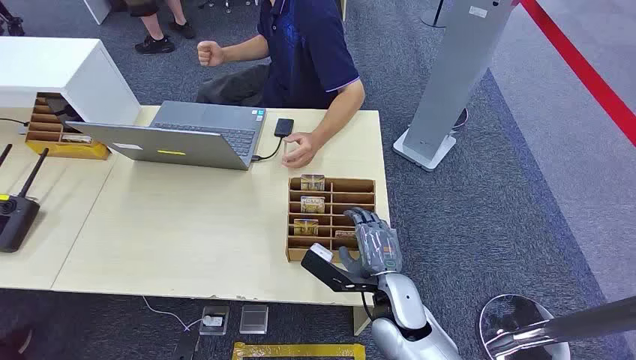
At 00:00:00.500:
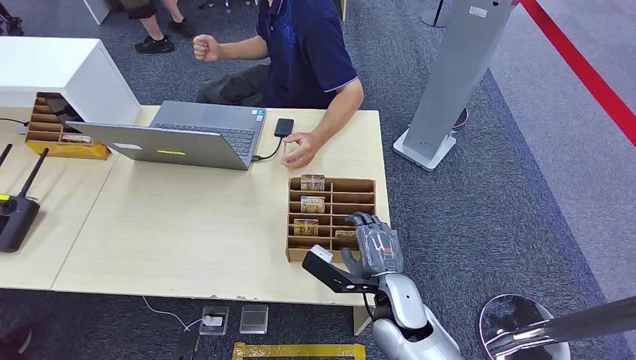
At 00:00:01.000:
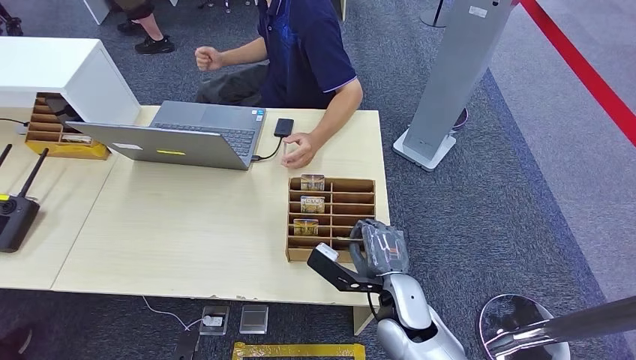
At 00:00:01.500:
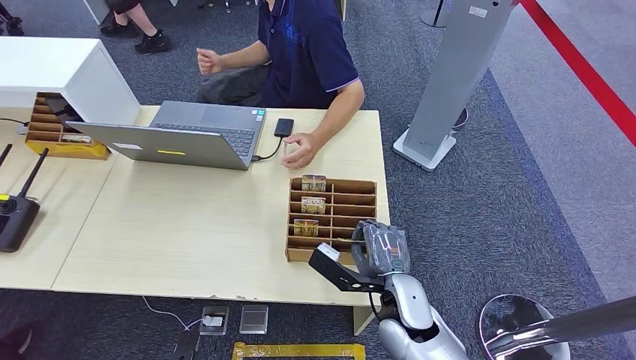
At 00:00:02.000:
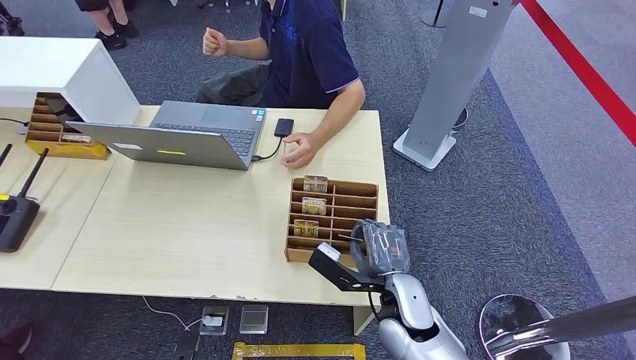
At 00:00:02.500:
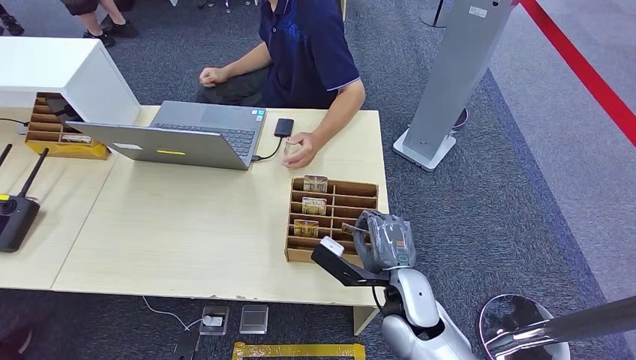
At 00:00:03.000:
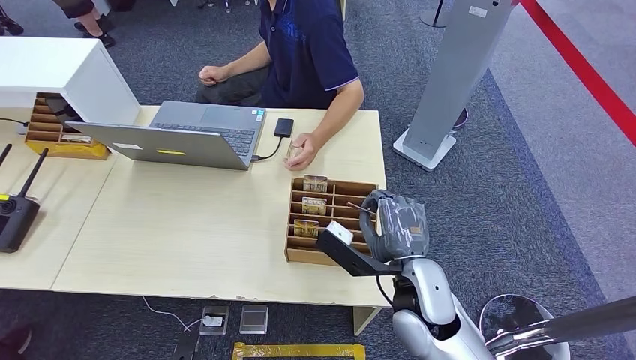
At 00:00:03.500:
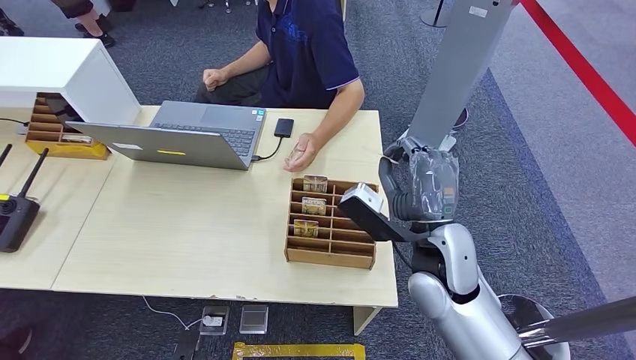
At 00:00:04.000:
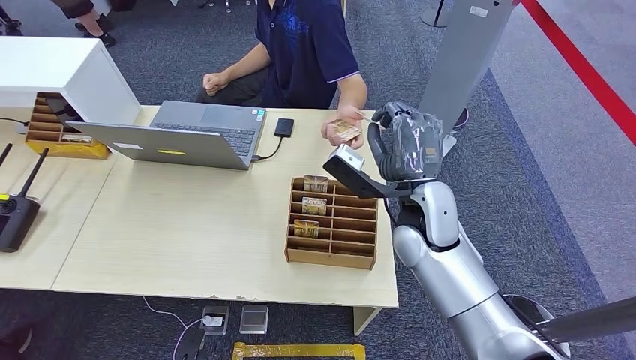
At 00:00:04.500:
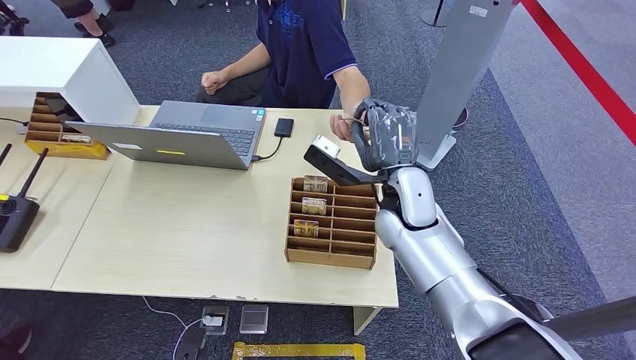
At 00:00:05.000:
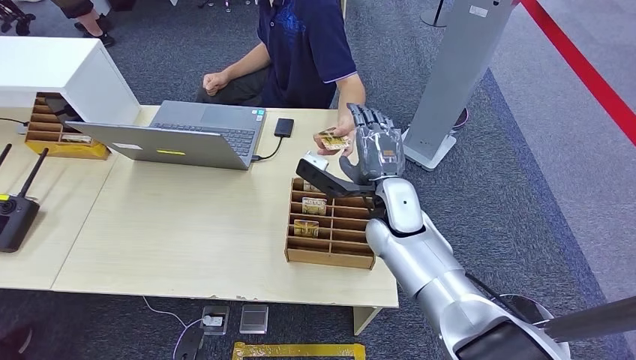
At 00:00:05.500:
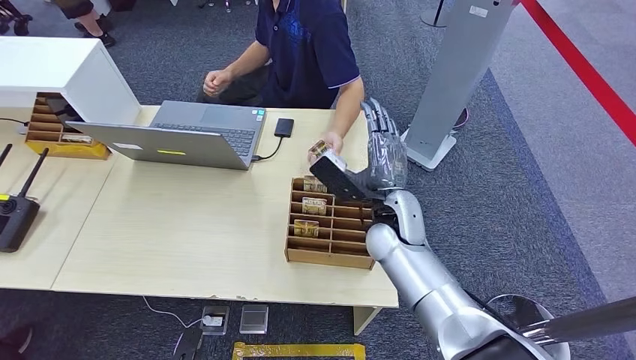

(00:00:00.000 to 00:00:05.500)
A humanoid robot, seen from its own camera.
Step, 00:00:00.000 - 00:00:02.500: Pick up the key card from the card box.
Step, 00:00:04.000 - 00:00:05.500: Hand the key card to the target.
00:00:02.000 - 00:00:03.500: The right hand shifts approximately 10 cm upward.
00:00:03.500 - 00:00:05.500: The right hand heads forward and to the left, covering some 10 cm.

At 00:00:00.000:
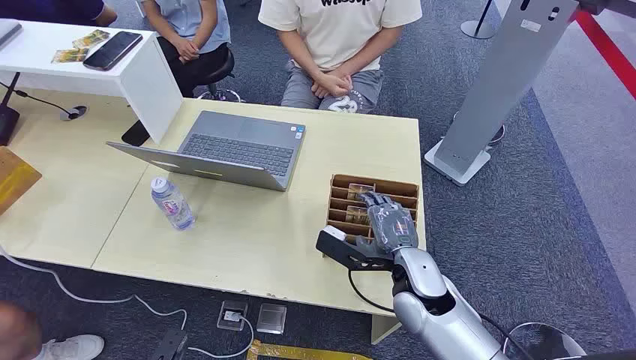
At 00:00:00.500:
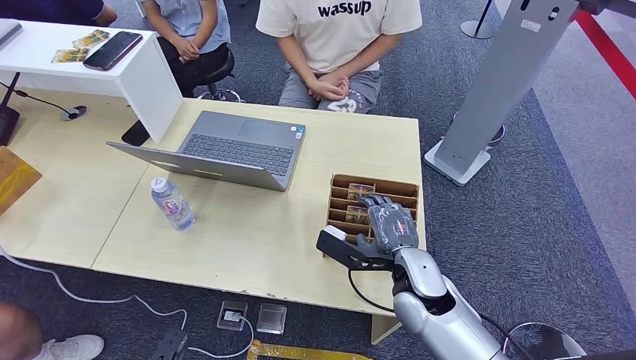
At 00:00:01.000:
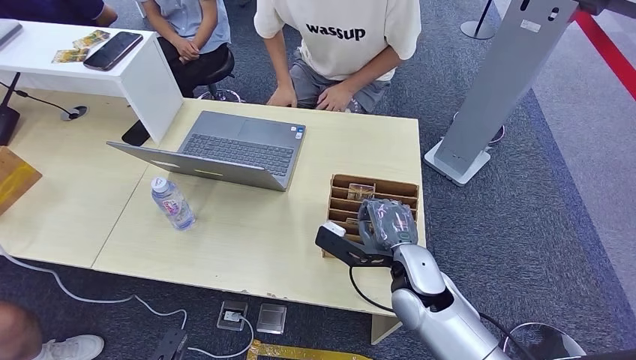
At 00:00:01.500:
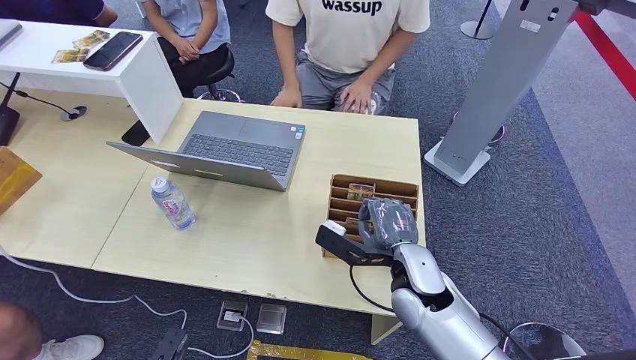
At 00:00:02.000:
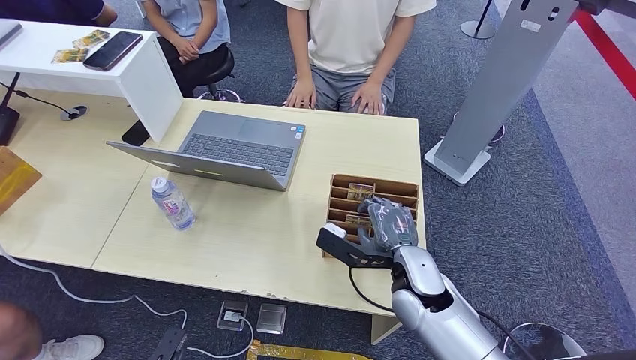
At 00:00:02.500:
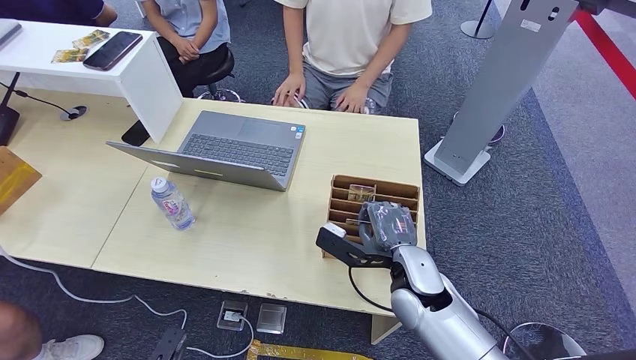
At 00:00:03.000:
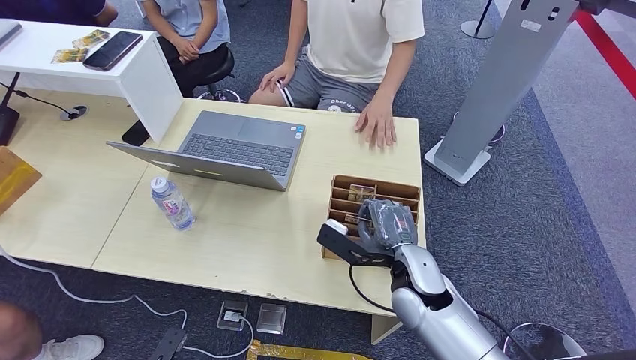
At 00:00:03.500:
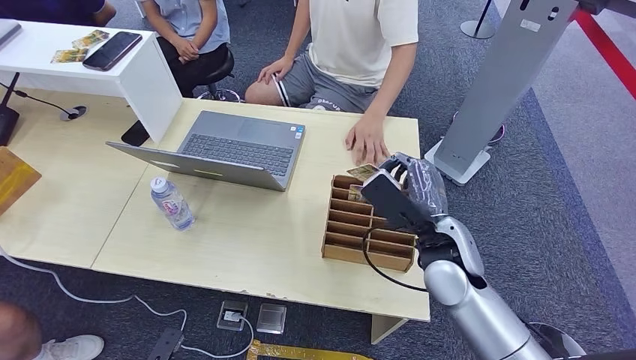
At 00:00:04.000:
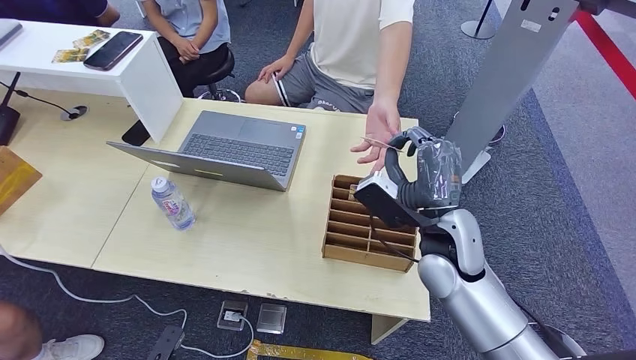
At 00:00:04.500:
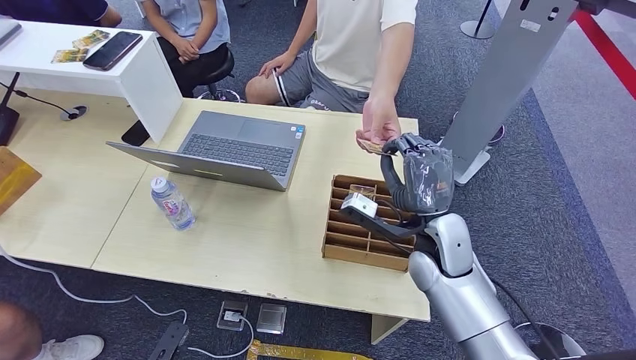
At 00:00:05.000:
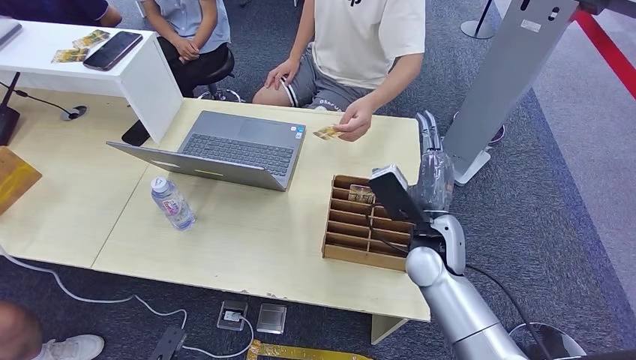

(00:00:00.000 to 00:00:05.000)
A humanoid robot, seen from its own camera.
Step, 00:00:00.000 - 00:00:03.000: Pick up the key card from the card box.
Step, 00:00:03.500 - 00:00:05.000: Hand the key card to the target.
00:00:02.500 - 00:00:05.000: The right hand heads forward, covering roughly 5 cm.
